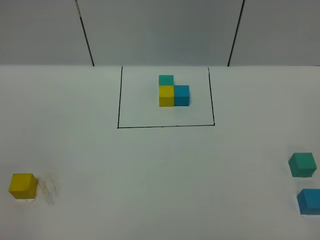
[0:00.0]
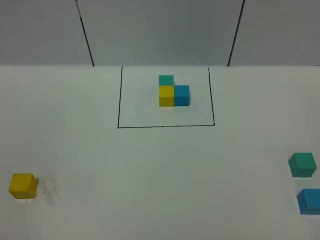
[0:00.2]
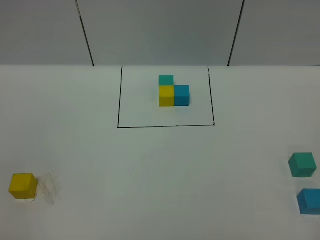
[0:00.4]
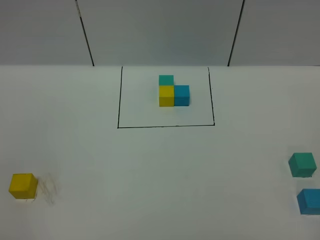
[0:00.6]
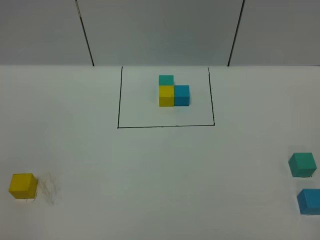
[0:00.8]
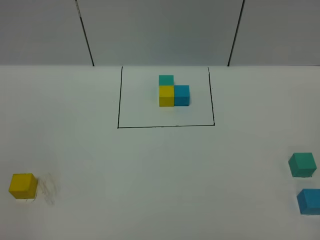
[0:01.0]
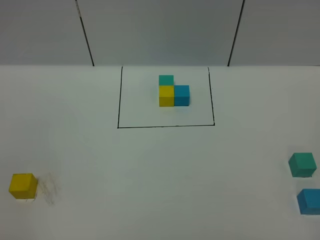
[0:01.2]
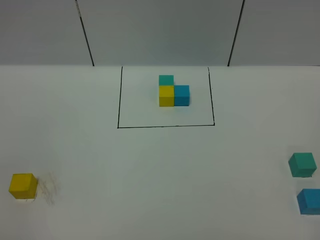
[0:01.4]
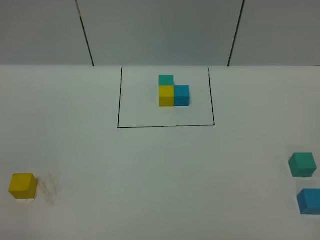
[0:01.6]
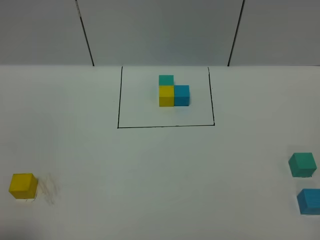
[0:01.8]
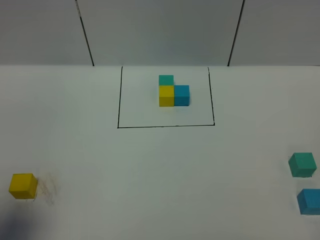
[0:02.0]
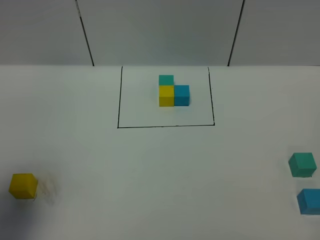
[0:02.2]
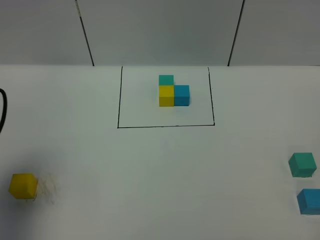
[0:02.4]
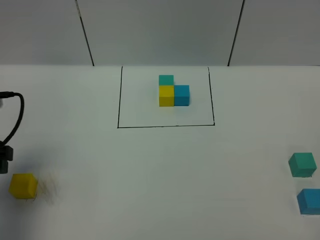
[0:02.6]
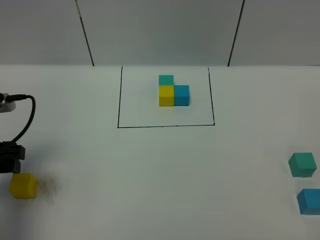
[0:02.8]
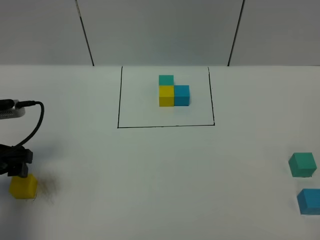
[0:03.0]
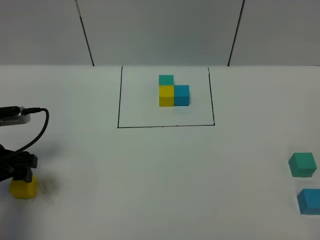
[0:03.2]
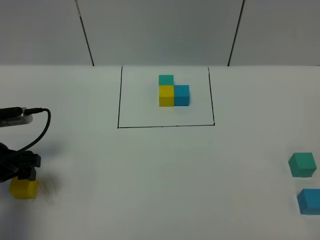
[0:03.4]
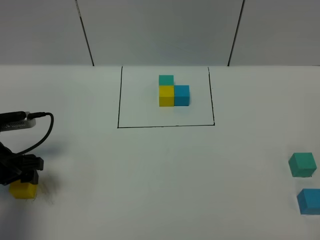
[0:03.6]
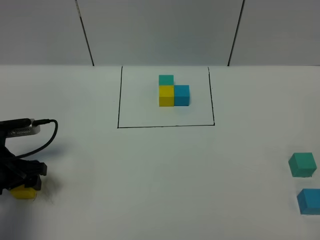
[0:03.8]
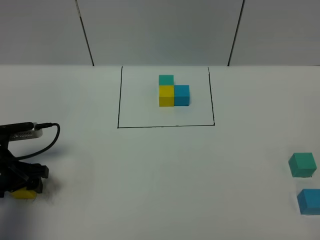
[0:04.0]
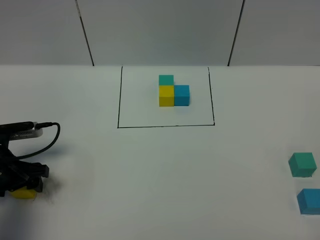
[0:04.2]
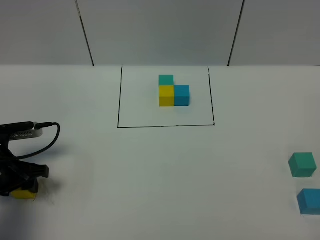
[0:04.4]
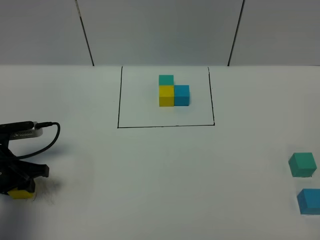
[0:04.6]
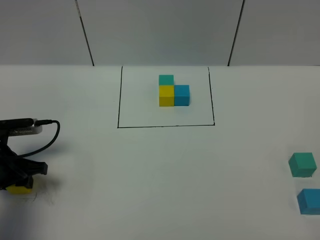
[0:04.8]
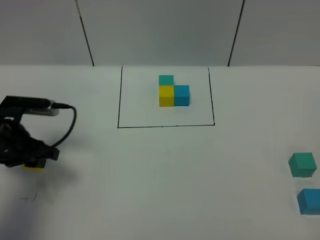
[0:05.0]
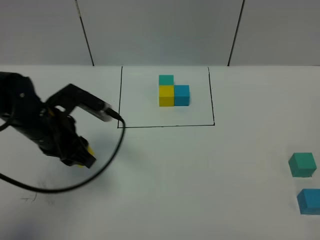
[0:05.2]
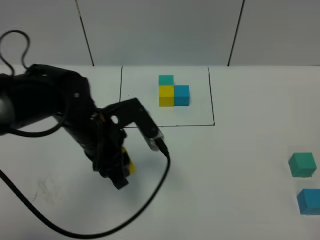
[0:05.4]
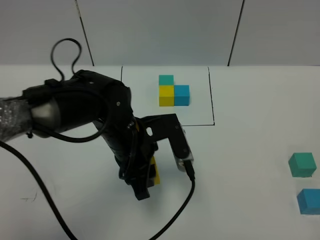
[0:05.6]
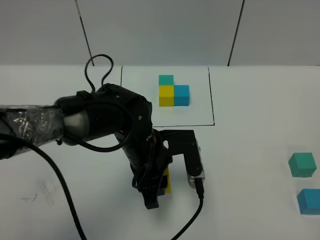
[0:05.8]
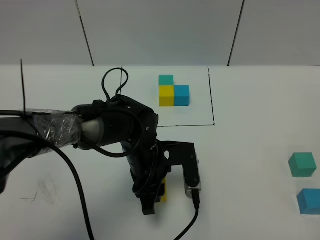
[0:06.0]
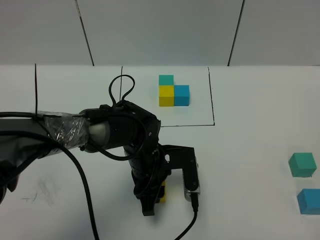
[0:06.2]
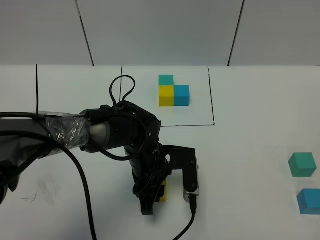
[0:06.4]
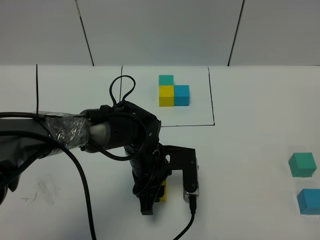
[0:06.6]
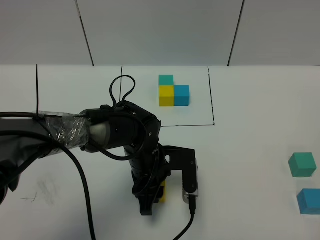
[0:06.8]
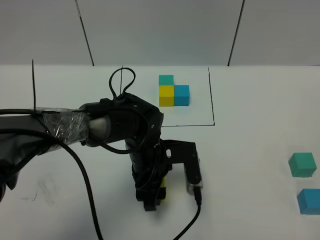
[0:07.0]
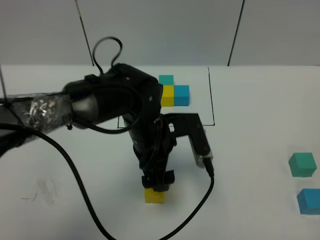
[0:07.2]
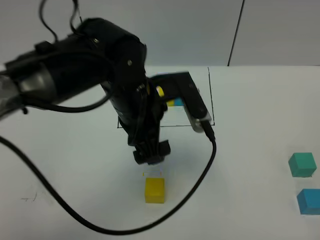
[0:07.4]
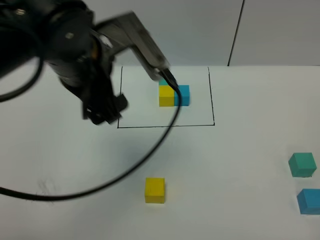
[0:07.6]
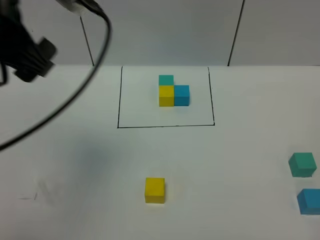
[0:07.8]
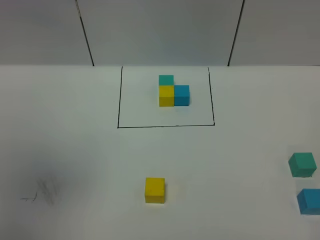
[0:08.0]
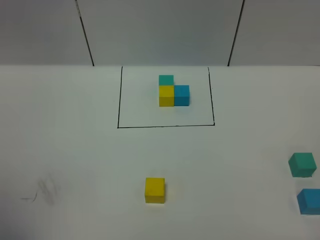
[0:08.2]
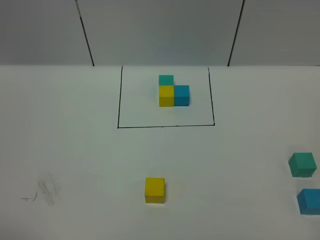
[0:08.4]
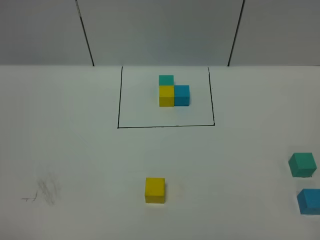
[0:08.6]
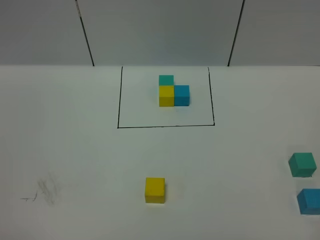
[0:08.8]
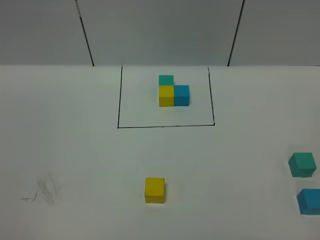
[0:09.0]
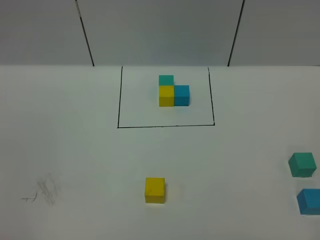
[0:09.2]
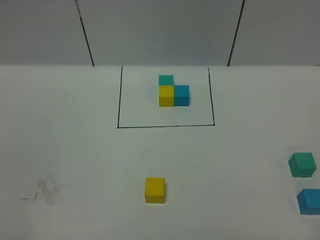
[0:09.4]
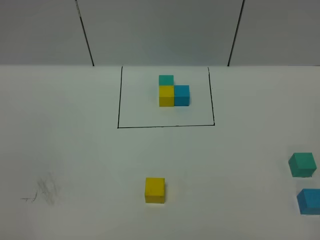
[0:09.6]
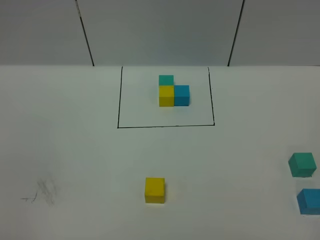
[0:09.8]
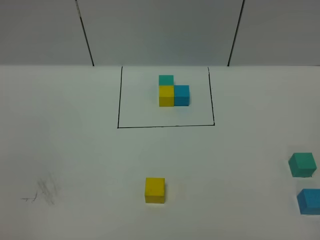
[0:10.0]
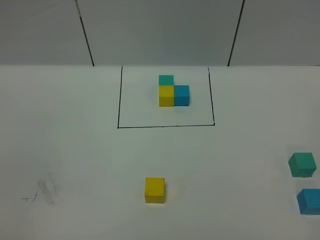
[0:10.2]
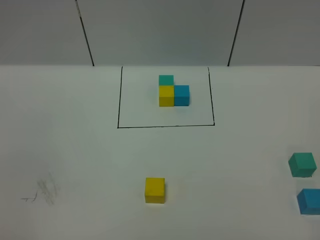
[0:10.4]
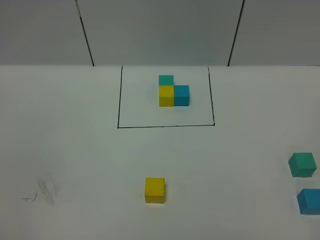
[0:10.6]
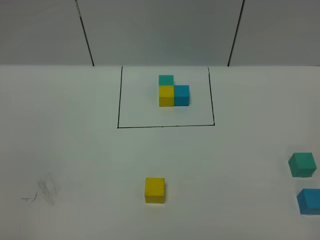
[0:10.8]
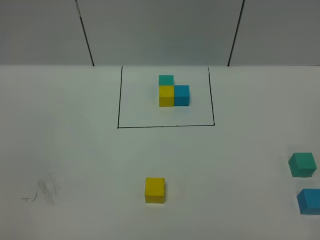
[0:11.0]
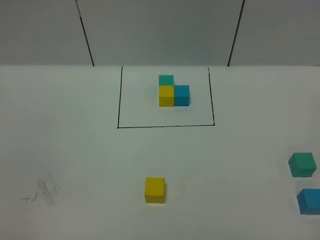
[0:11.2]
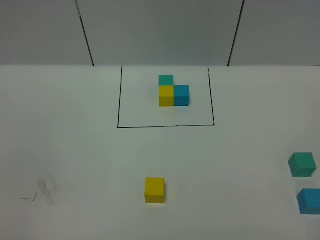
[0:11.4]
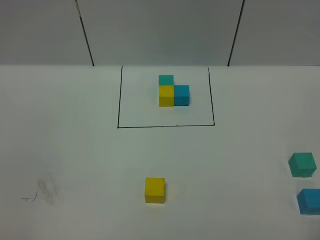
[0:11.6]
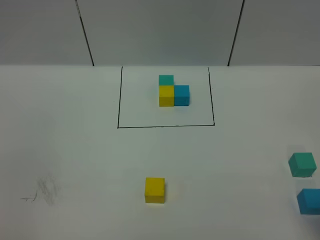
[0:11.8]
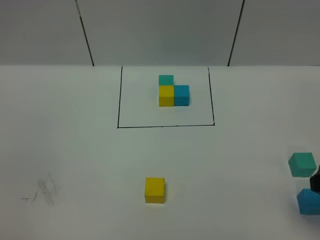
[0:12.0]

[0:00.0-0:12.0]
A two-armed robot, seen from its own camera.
Task of the whole recording: According to the building block template in front, assemble the scattered blocks together.
Step, 0:02.4 to 0:06.8: Put the yellow cube in the center of the table.
0:00.0 to 0:01.6: The two grippers keep their place.
0:01.6 to 0:03.0: The left gripper travels forward by roughly 25 cm.
0:03.0 to 0:04.4: The left gripper moves downward, approximately 10 cm.
0:04.4 to 0:06.0: The left gripper goes roughly 30 cm to the right, and closes its fingers.
0:06.0 to 0:07.6: The left gripper heads upward, covering about 20 cm, and opens.
0:07.6 to 0:09.0: The left gripper moves backward and to the left, approximately 40 cm.
0:10.4 to 0:12.0: The right gripper is displaced forward by about 20 cm, and opens.

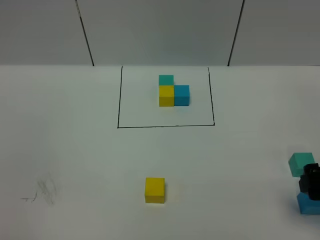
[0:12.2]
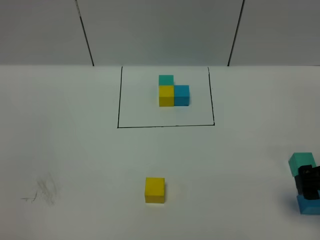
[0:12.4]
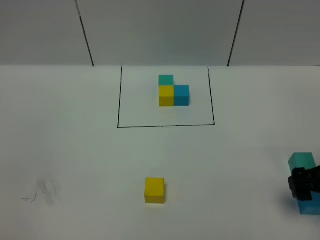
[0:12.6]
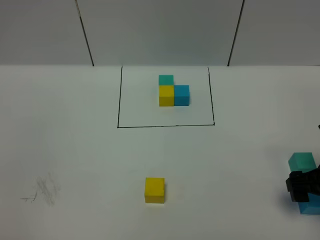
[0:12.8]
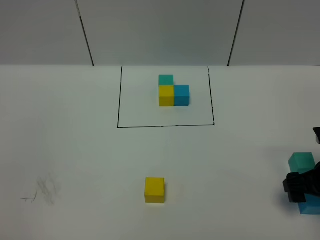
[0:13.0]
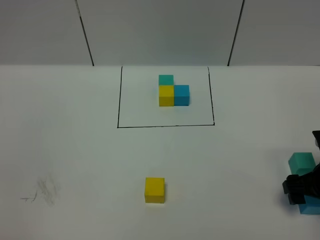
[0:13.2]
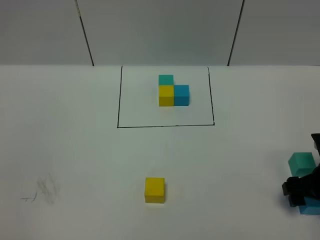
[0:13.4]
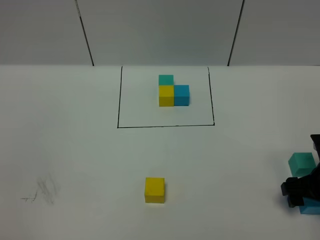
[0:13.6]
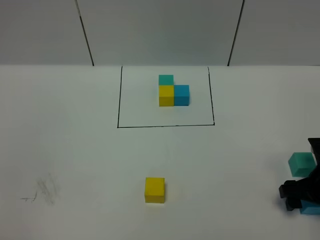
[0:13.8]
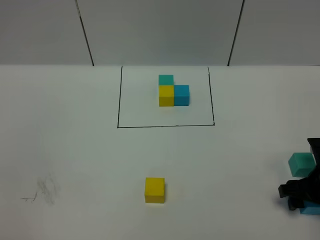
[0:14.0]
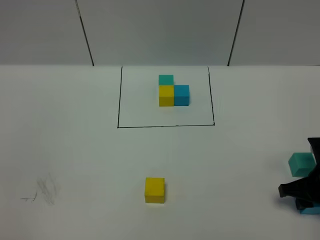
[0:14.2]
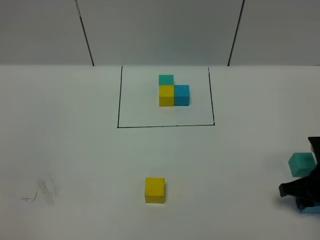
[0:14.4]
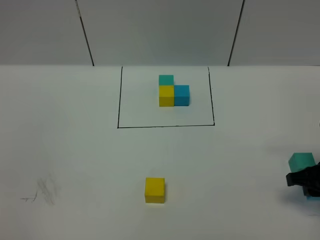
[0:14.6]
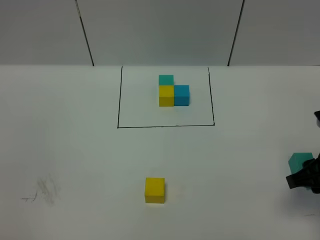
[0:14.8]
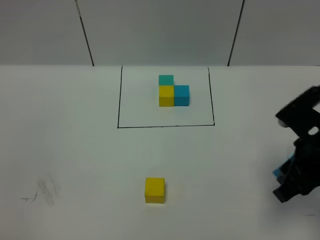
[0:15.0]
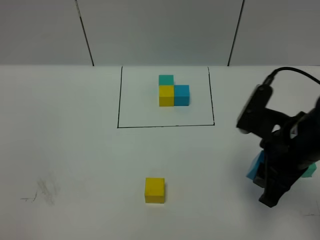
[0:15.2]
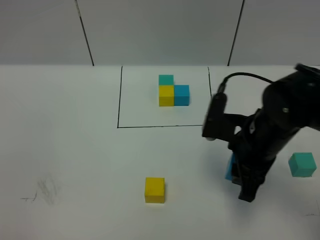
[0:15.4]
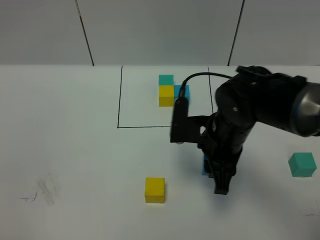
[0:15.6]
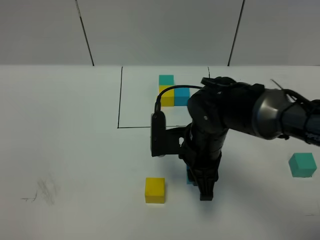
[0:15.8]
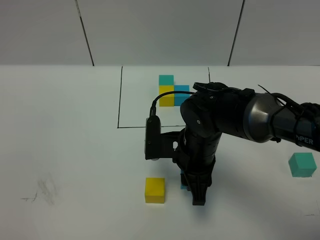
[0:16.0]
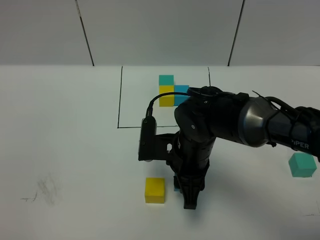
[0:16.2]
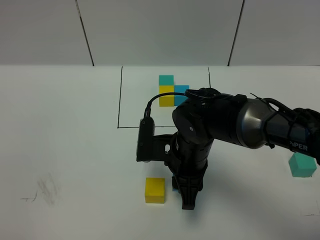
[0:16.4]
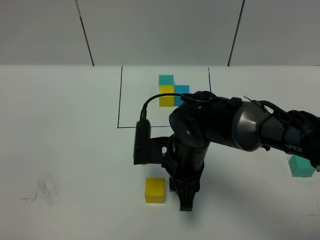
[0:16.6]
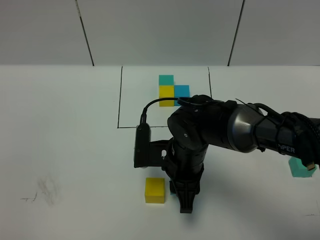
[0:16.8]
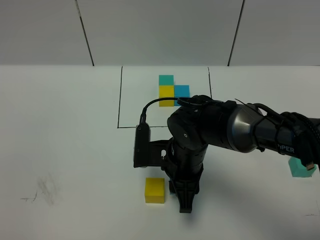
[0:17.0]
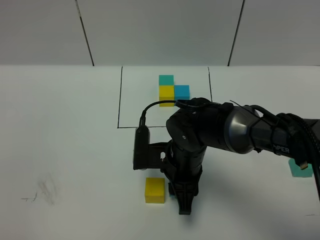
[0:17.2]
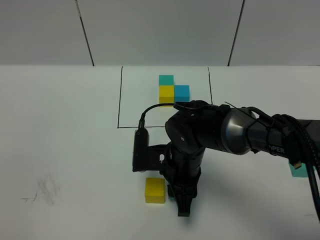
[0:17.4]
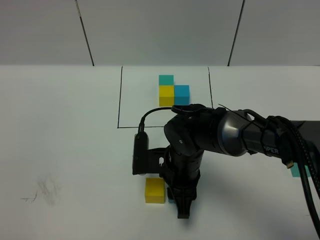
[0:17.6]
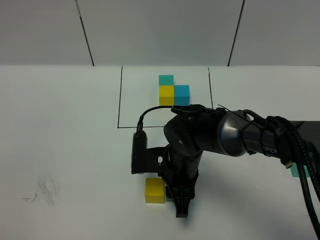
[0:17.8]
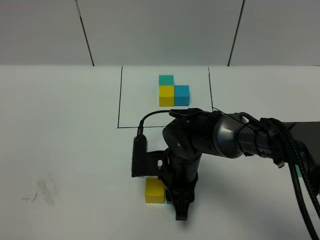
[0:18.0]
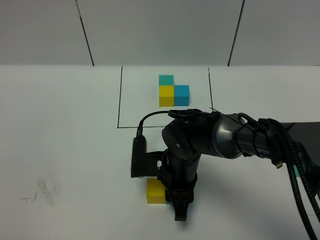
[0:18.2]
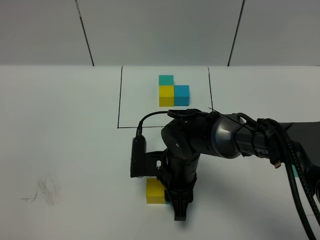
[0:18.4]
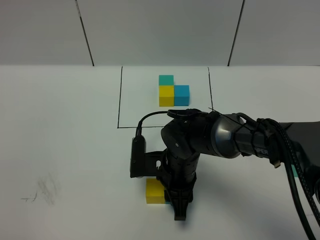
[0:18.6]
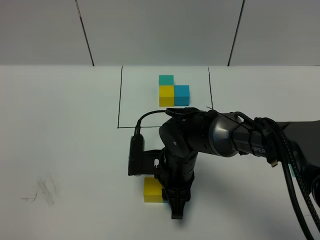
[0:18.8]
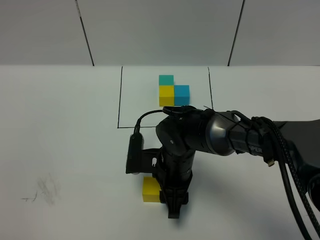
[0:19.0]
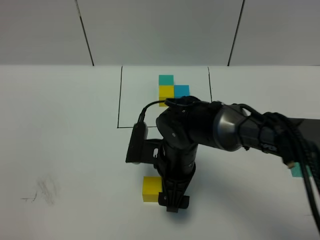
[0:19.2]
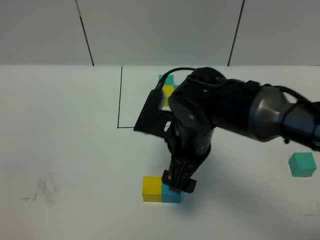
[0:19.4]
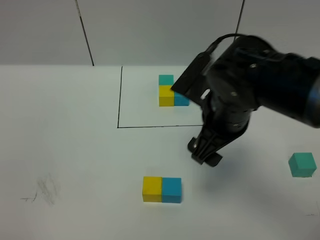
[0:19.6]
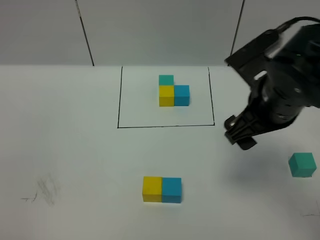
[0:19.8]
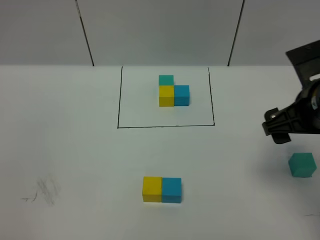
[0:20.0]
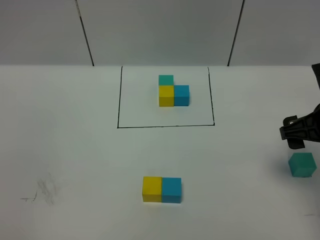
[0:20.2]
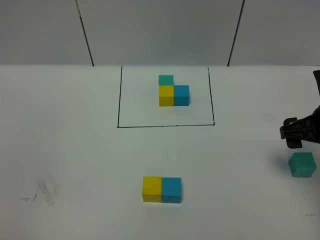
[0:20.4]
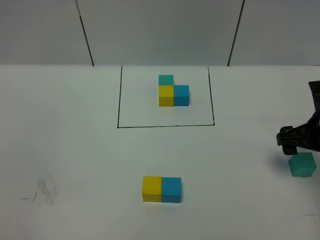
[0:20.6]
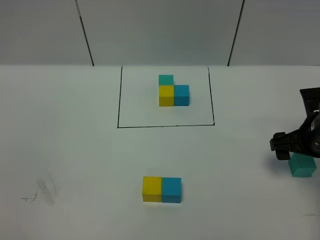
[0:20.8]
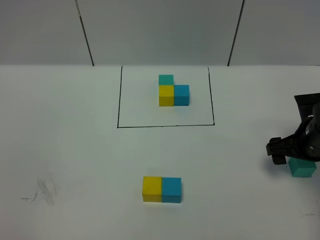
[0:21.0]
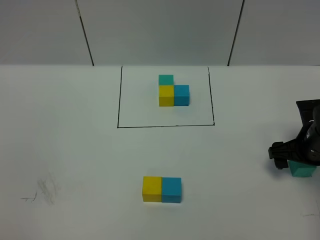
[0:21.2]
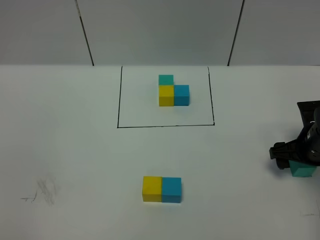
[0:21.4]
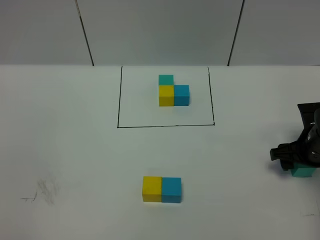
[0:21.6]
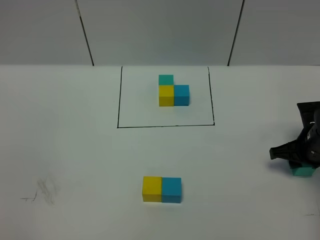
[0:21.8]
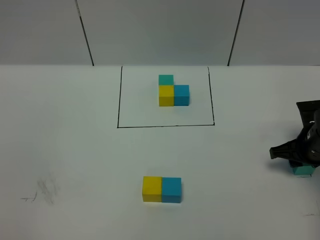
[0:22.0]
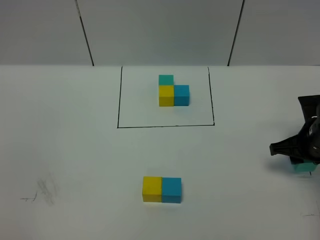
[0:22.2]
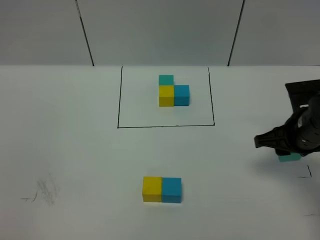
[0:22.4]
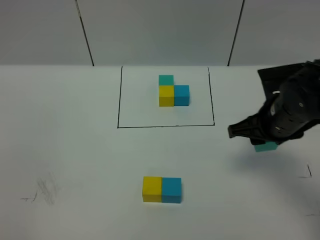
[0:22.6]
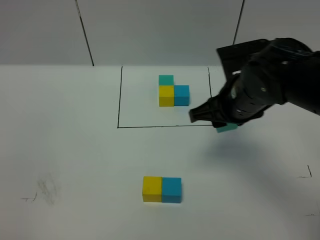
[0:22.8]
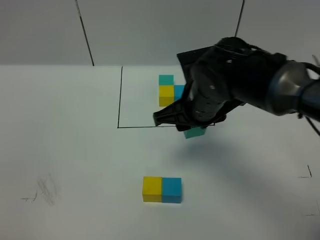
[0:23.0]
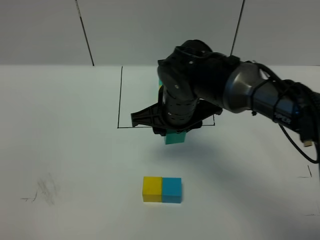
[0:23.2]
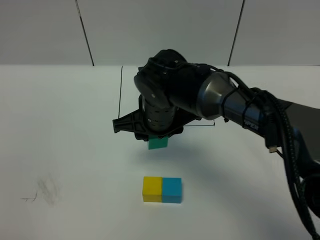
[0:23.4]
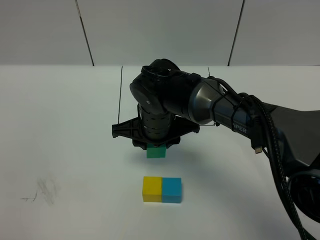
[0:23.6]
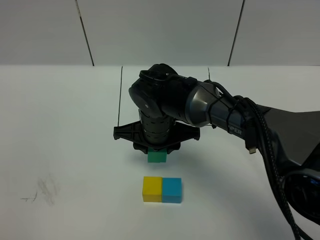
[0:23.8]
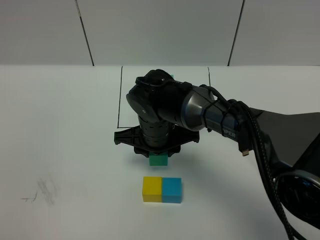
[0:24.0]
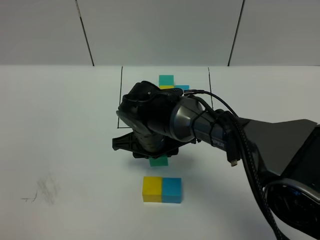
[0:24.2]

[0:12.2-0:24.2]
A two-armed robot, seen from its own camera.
Task of the whole recording: According to the building block template in front, assemble the scattered blocks together.
Step, 0:12.2 to 0:19.0: Put the blue cube on the right of the yellow cube.
0:12.2 to 0:13.8: The right gripper travels downward and forward by roughly 15 cm.
0:13.8 to 0:15.2: The right gripper is displaced upward and to the left by roughly 15 cm, and closes its fingers.
0:15.2 to 0:16.6: The right gripper shifts roughly 15 cm to the left and downward.
0:16.6 to 0:18.2: There are only small adjustments of the grippers.
0:18.2 to 0:19.8: The right gripper moves upward and to the right, some 25 cm, and opens up.
0:19.8 to 0:21.2: The right gripper moves downward and to the right, some 20 cm.
0:21.2 to 0:22.6: The right gripper moves to the left and upward, approximately 15 cm, and closes up.
0:22.6 to 0:24.2: The right gripper goes some 20 cm to the left.
